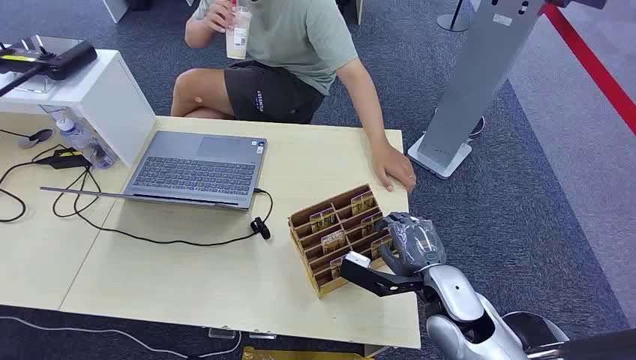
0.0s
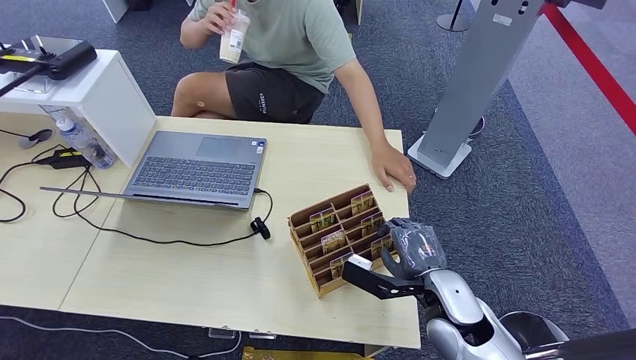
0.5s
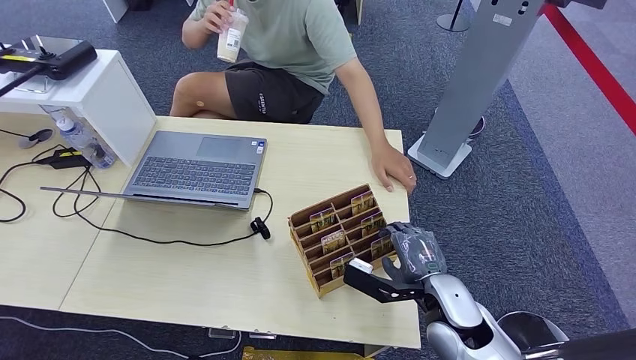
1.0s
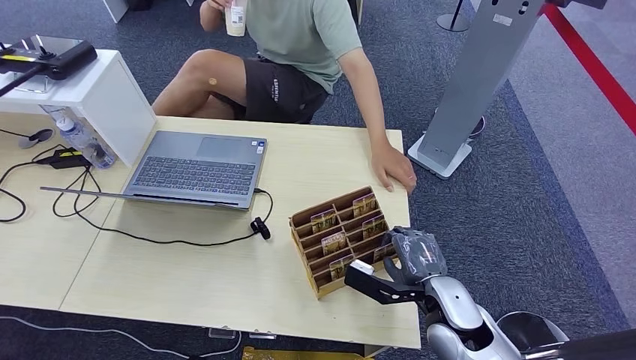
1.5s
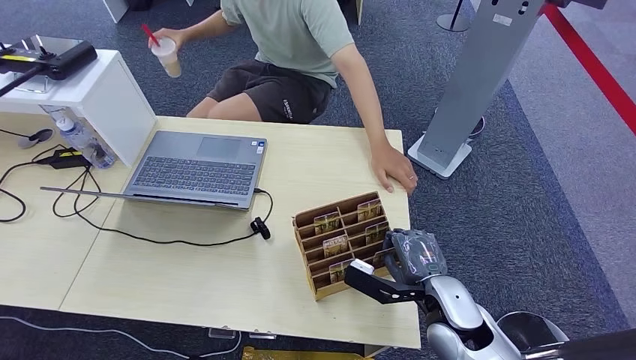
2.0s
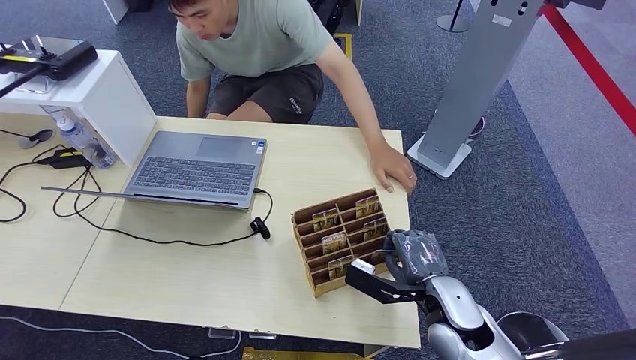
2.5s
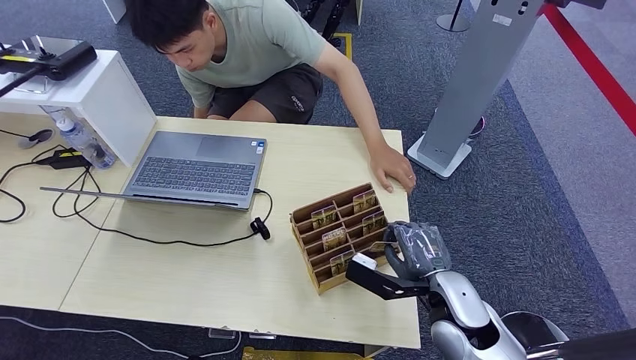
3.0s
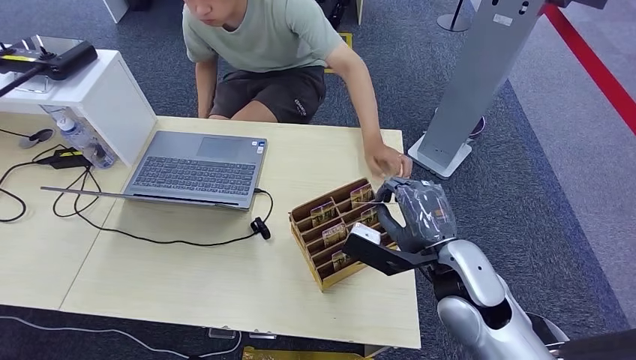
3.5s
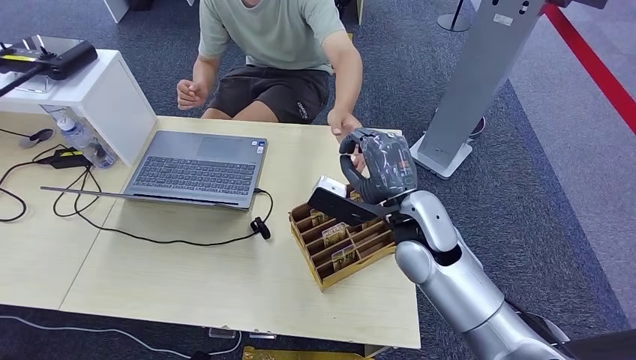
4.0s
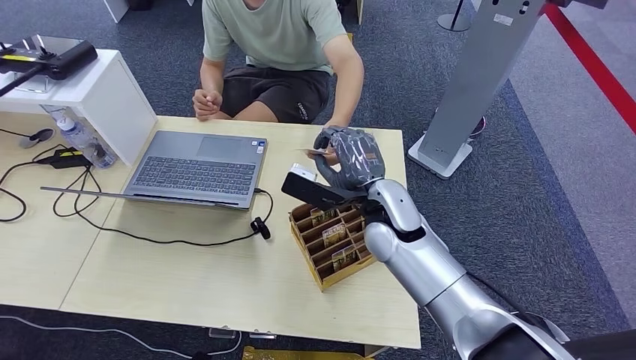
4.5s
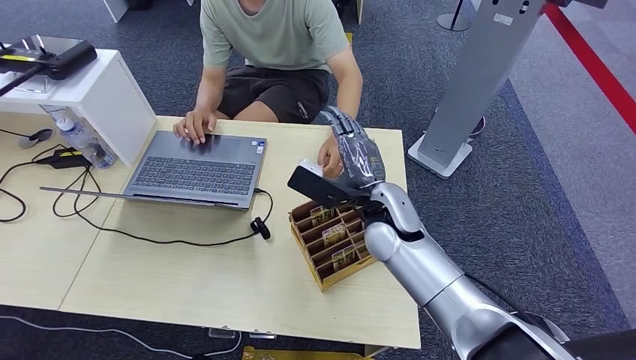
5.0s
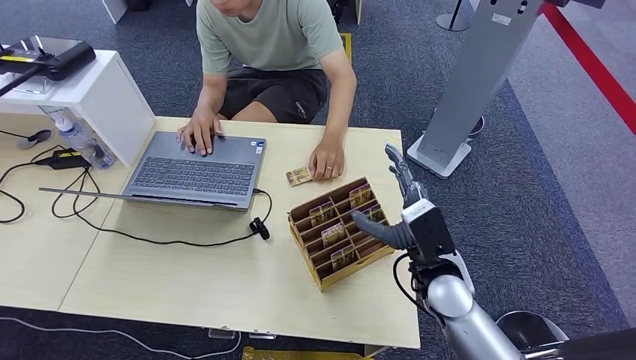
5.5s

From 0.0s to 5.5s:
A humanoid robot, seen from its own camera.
Step, from 0.0s to 3.0s: Pick up the key card from the card box.
Step, from 3.5s to 5.5s: Hand the key card to the target.
From 2.0s to 3.5s: The right hand travels upward by about 10 cm.
From 3.5s to 5.5s: The right hand is displaced downward by about 5 cm, and travels to the left and back again, about 10 cm each way.

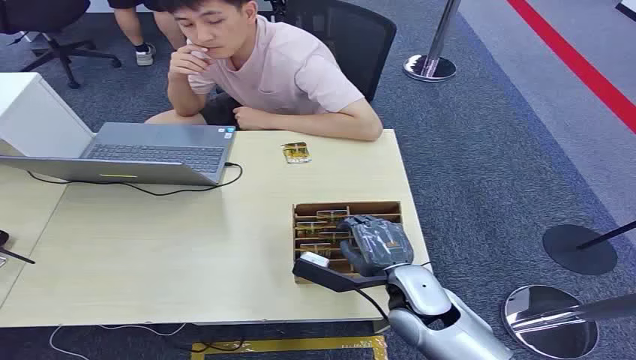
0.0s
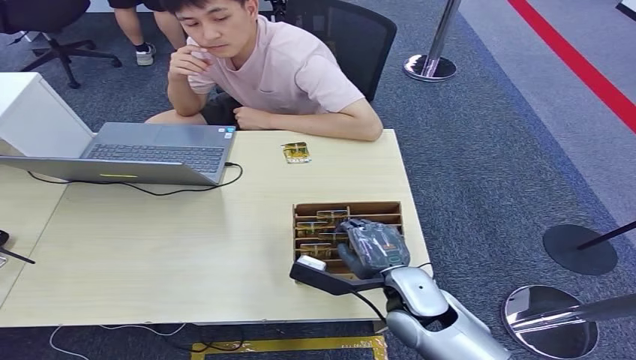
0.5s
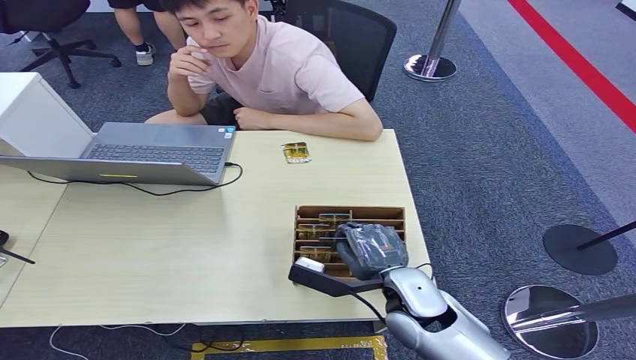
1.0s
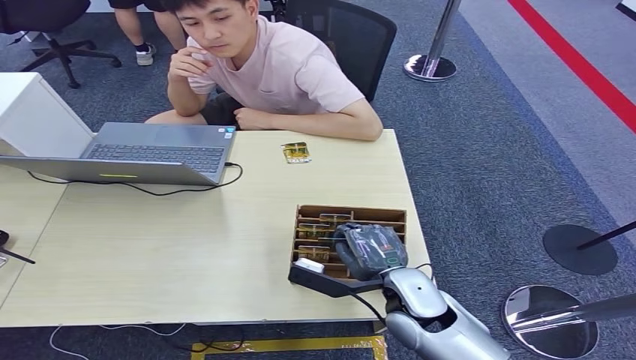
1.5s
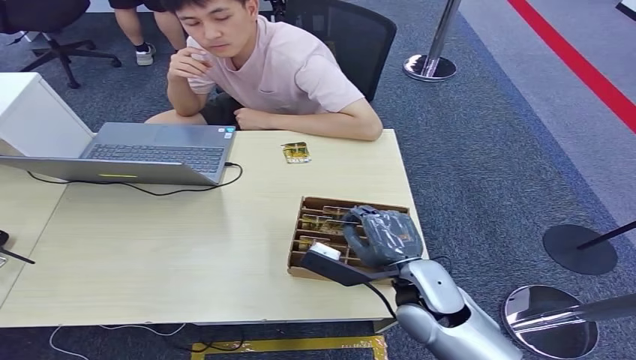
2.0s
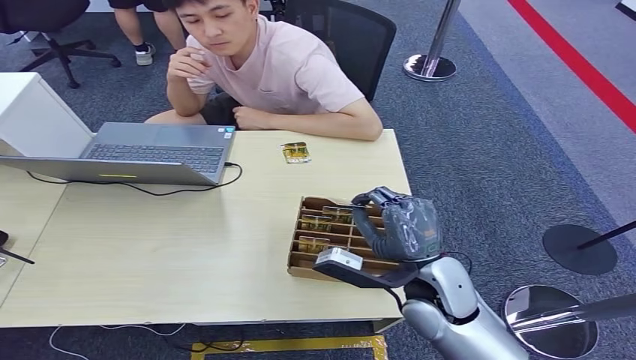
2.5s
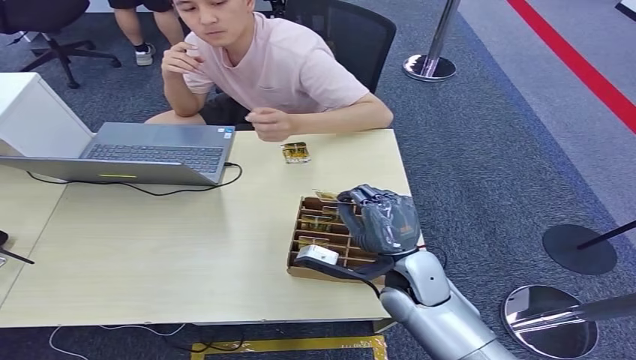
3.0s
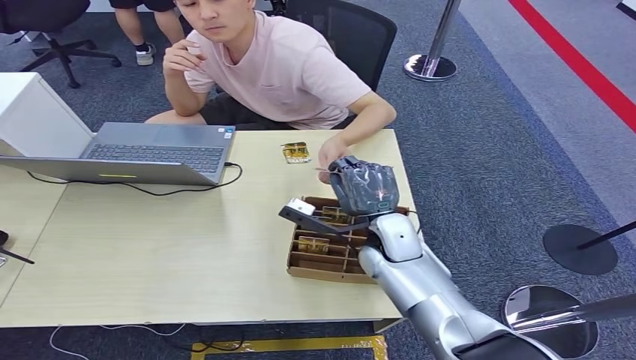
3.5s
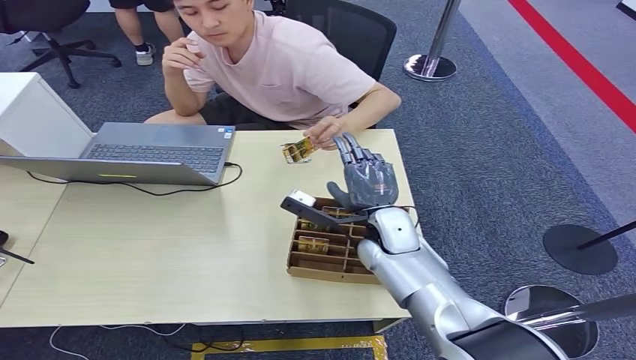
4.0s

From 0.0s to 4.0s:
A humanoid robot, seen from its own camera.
Step, from 0.0s to 3.0s: Pick up the key card from the card box.
Step, from 3.5s to 4.0s: Hand the key card to the target.
From 2.0s to 4.0s: The right hand is displaced forward by about 15 cm.
